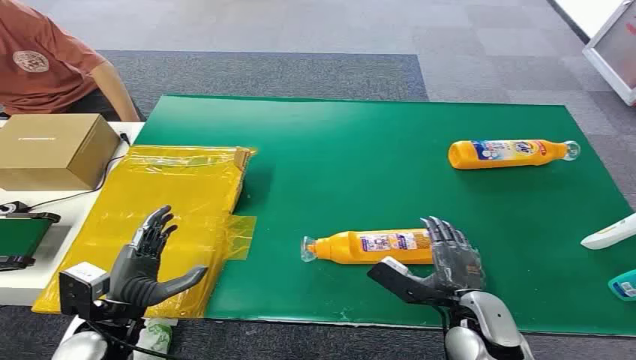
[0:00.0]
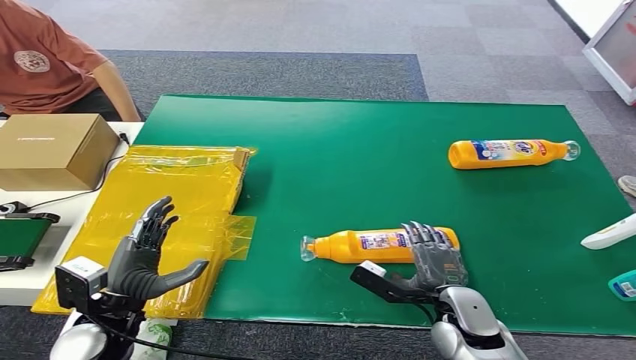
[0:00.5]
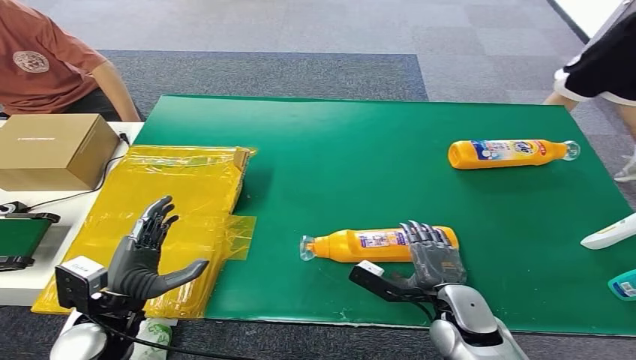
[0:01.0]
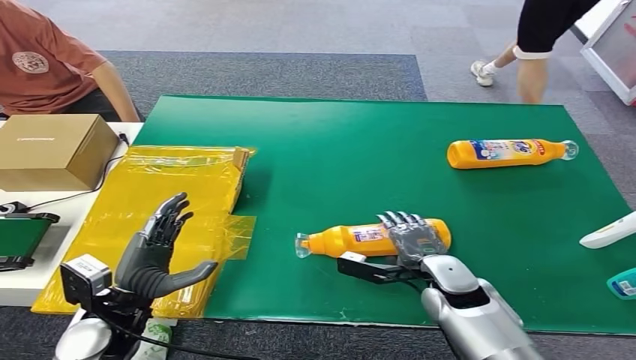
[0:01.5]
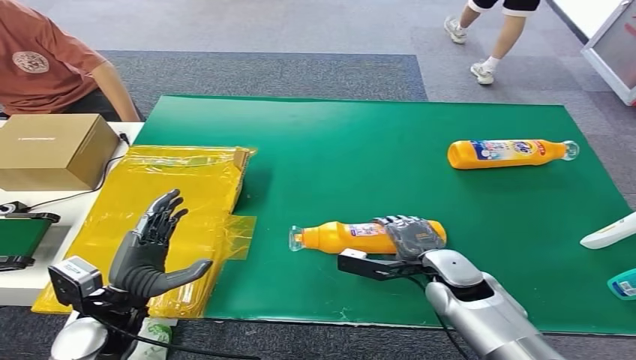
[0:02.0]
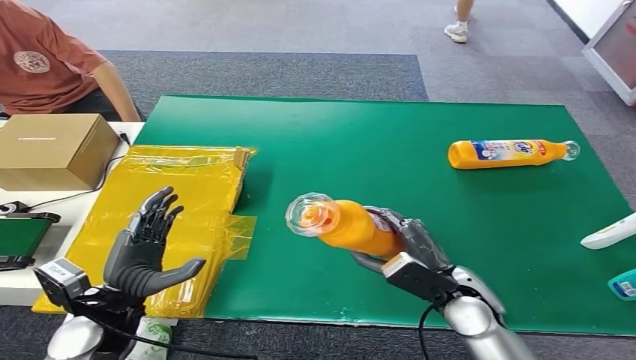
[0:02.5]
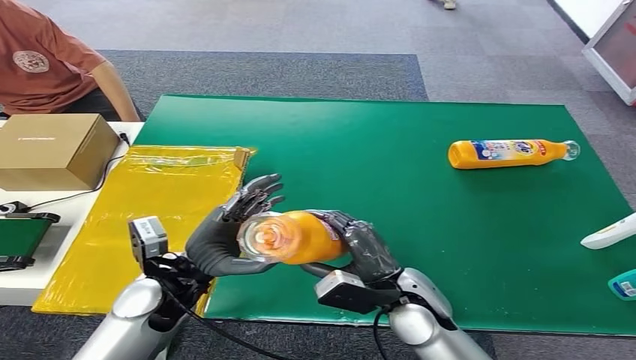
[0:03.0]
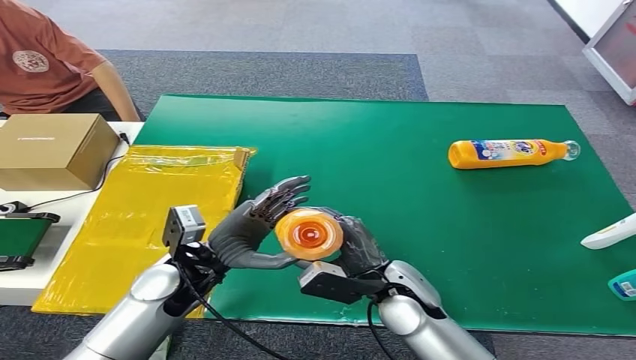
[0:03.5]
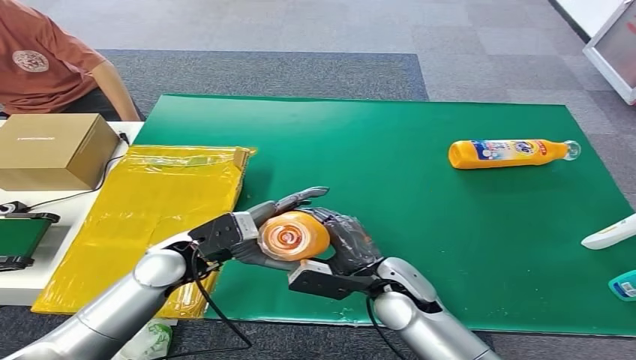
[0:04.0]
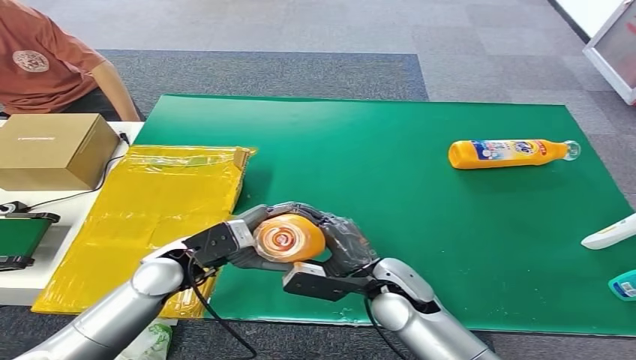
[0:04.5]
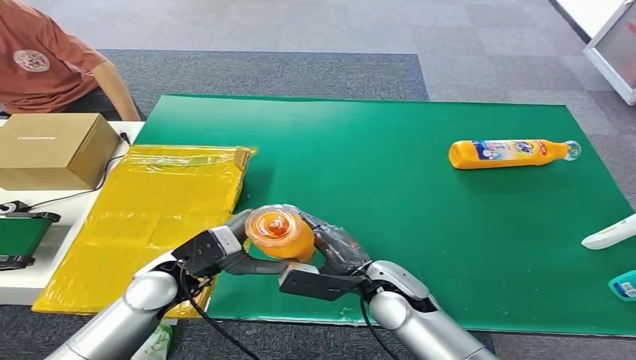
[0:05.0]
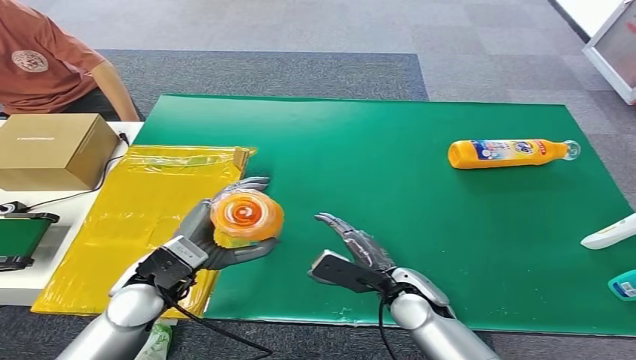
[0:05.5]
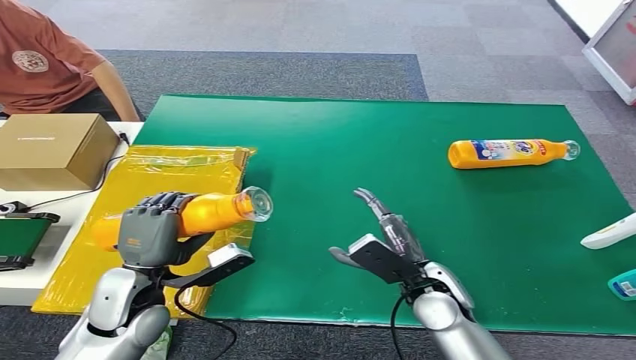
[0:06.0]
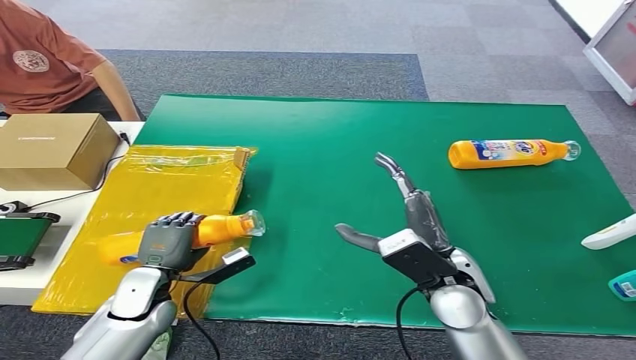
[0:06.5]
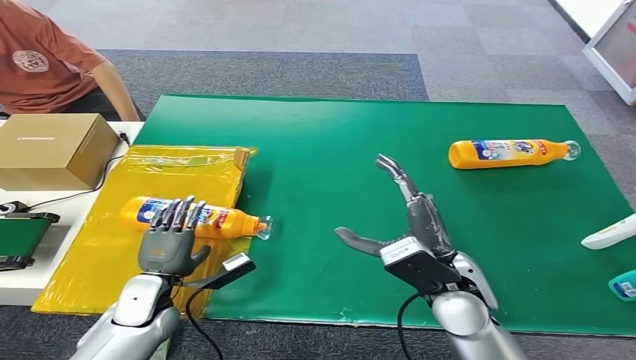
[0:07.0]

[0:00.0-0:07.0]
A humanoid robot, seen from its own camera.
Step, 0:00.0 to 0:02.5: Pick up the bottle from the table.
Step, 0:03.0 to 0:07.0: Turn the bottle to the front side.
0:05.0 to 0:07.0: The left hand moves downward and to the left, some 10 cm; the right hand goes some 10 cm upward and to the right.
